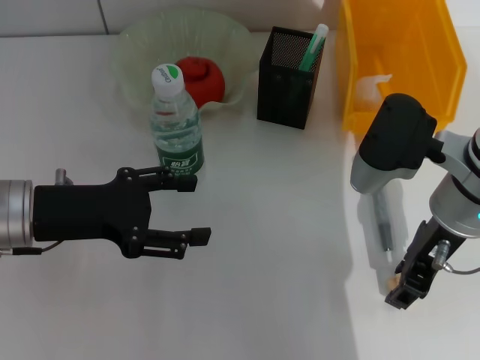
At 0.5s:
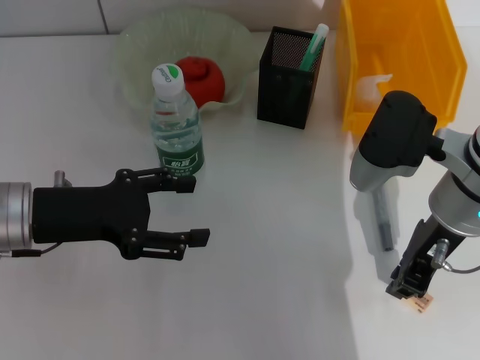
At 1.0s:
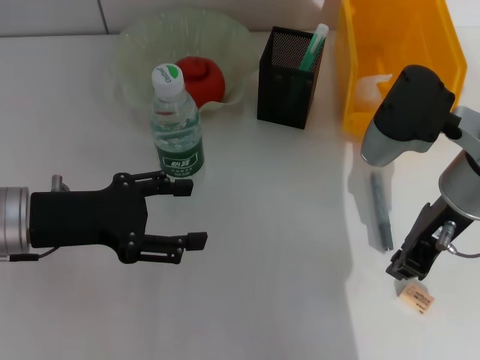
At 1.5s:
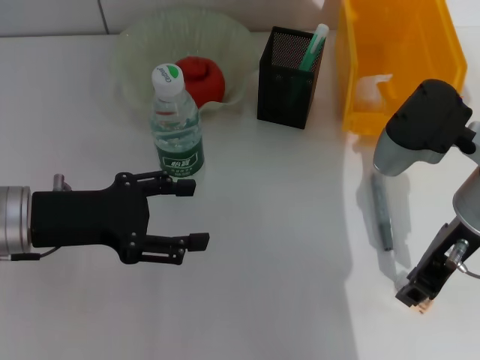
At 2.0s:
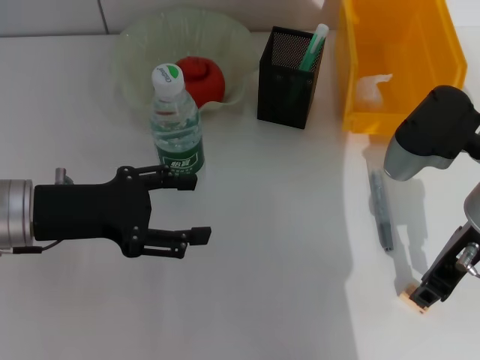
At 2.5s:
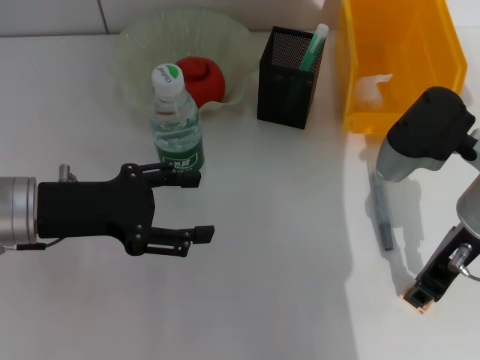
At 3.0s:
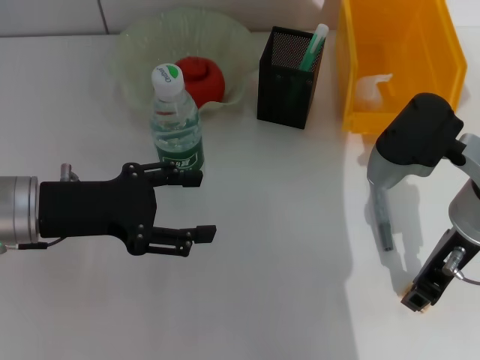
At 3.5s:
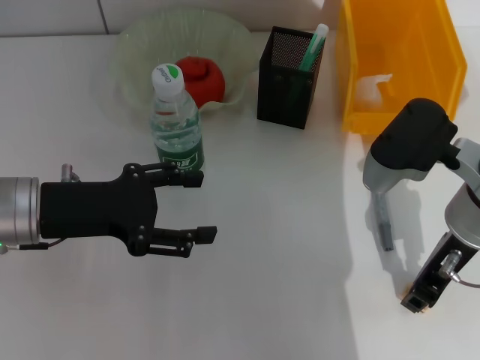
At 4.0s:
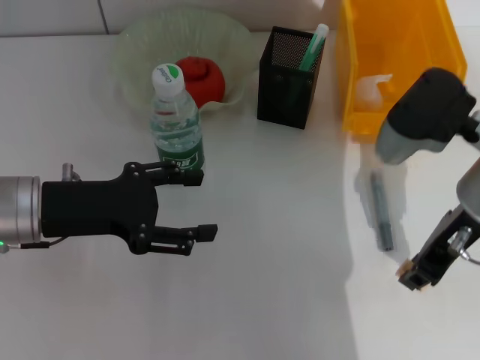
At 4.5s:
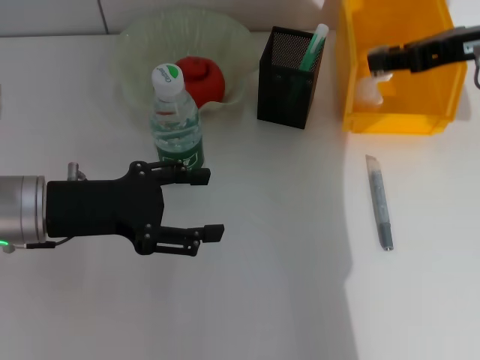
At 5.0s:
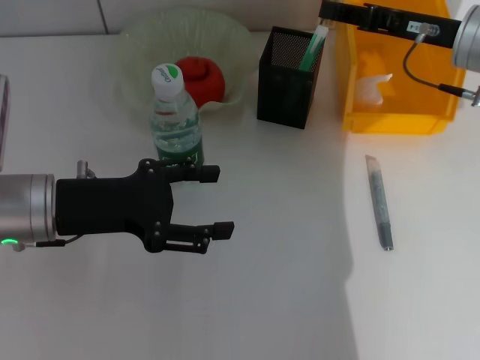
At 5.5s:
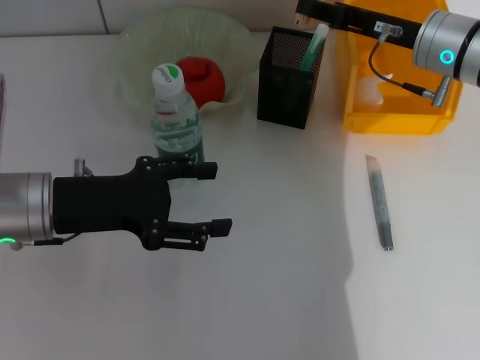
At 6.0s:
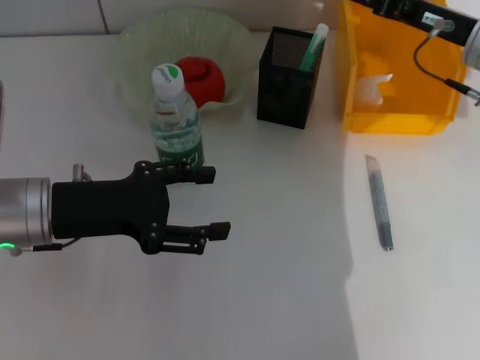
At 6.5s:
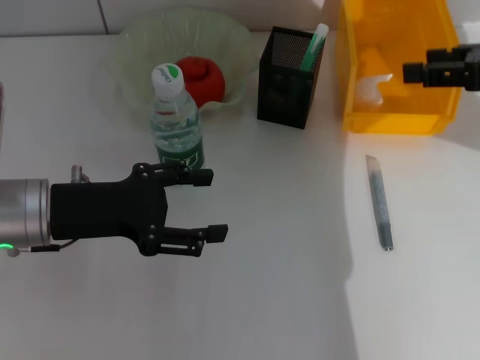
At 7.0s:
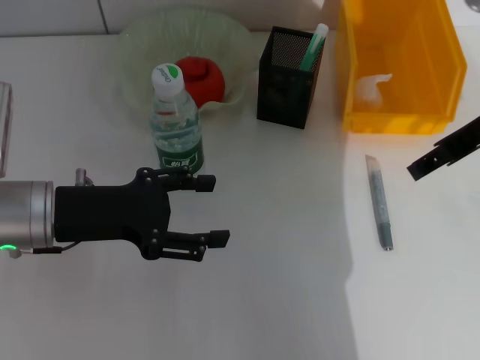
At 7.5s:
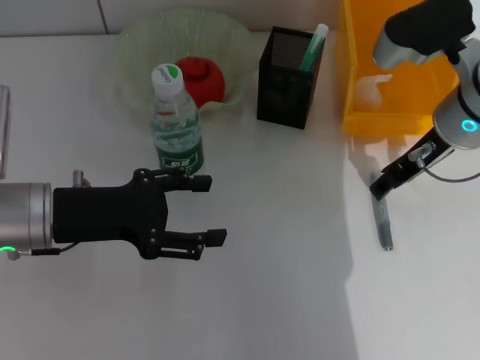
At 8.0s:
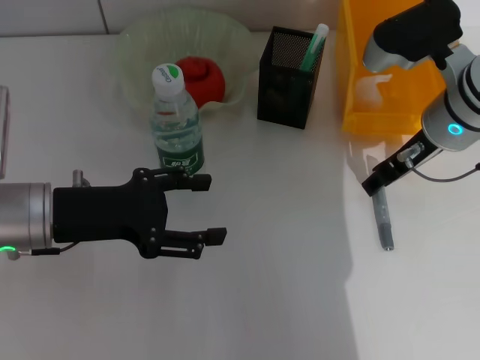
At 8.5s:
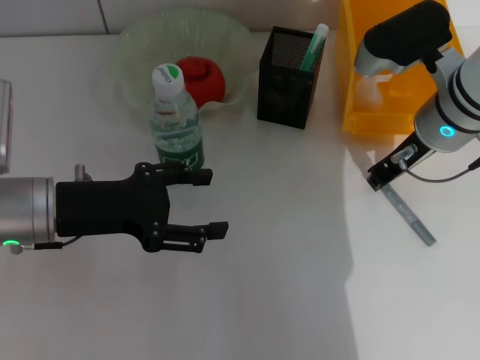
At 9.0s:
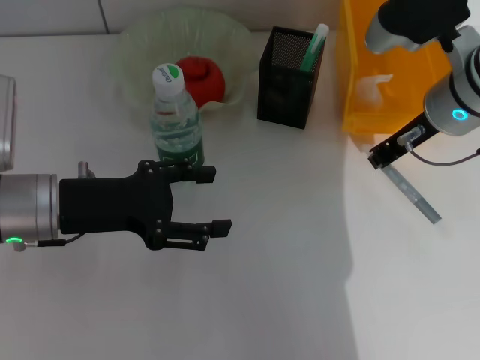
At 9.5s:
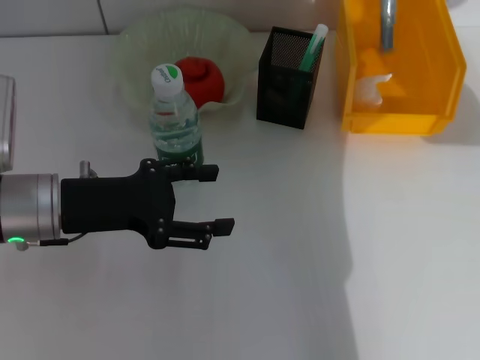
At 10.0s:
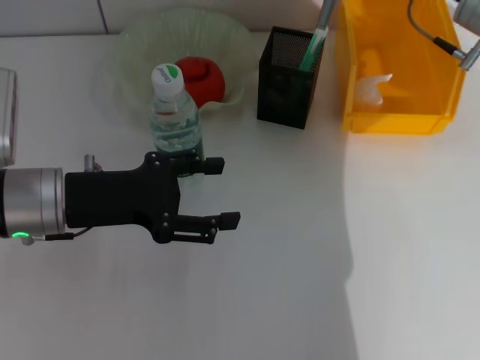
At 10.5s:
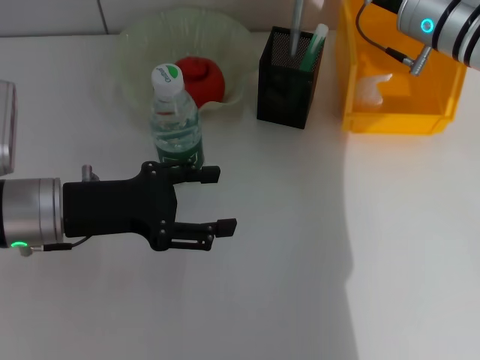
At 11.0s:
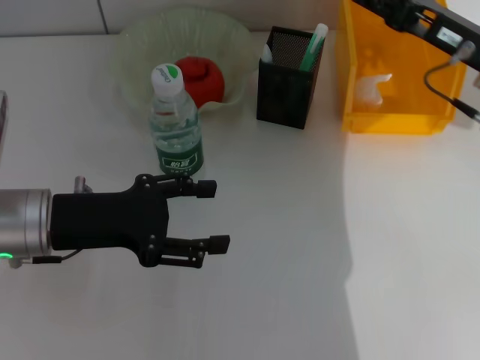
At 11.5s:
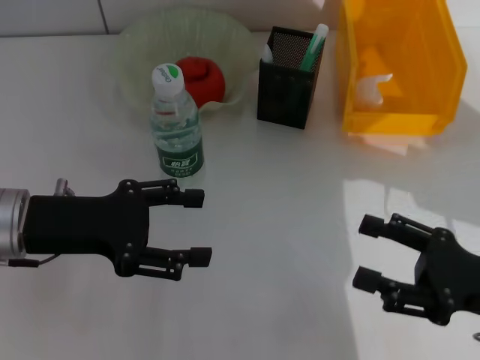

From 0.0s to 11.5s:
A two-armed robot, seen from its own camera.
Step, from 0.0s to 3.5s: Grab the eraser with the right hand.
Step, from 4.0s to 6.0s: Put the eraser into the pen holder with the right hand.
Step, from 6.5s to 8.5s: Grab the gray glue with the right hand.
Step, from 9.0s to 11.0s: Place the gray glue into the pen holder with the right hand.
From 0.0s to 2.0s: The right gripper closes up.
From 2.0s to 4.0s: The grippers stay close to where they were, moving slightly.
From 4.0s to 6.0s: The right gripper travels forward and to the right by about 10 cm, and opens its fingers.
From 6.0s to 7.5s: The right gripper goes some 5 cm to the left.
From 7.5s to 9.5s: The right gripper shifts about 10 cm upward and to the right, and closes.
From 9.5s to 11.5s: The right gripper goes approximately 25 cm downward and backward, and opens up.
